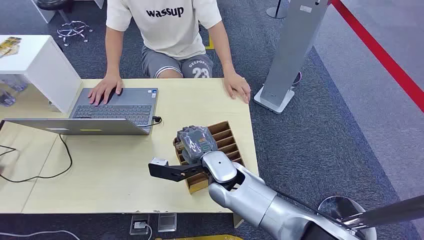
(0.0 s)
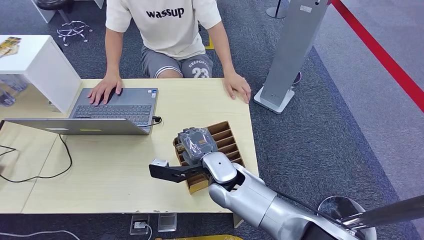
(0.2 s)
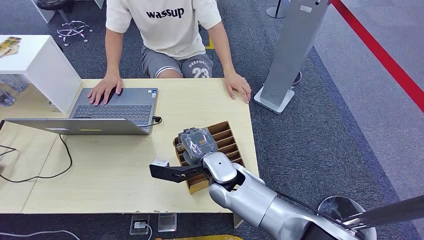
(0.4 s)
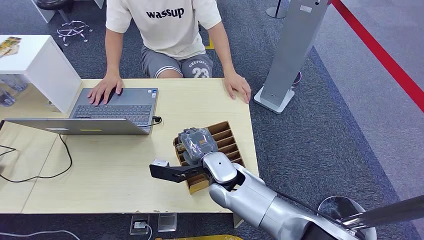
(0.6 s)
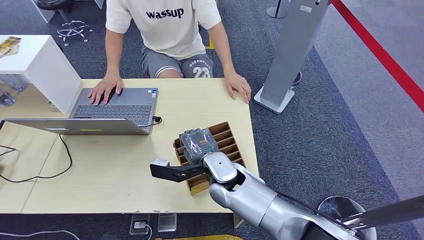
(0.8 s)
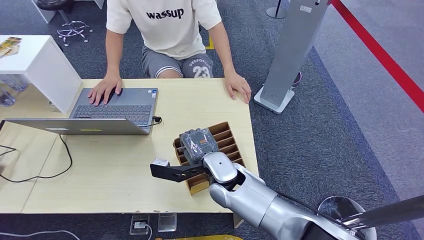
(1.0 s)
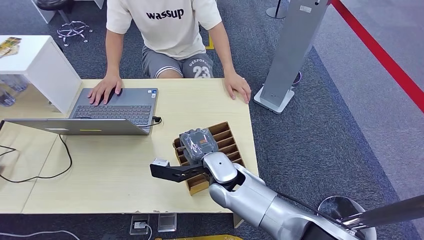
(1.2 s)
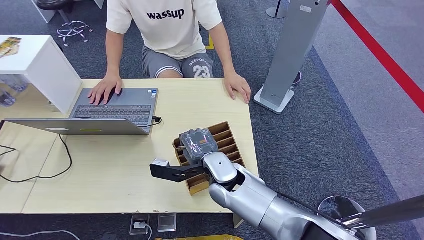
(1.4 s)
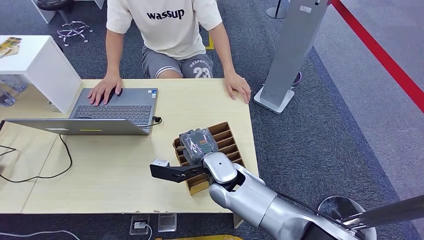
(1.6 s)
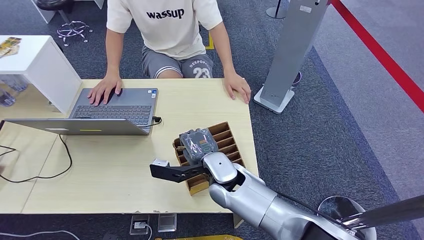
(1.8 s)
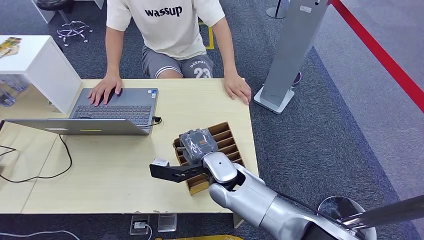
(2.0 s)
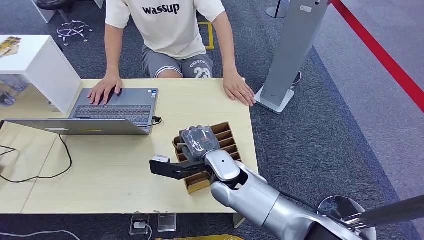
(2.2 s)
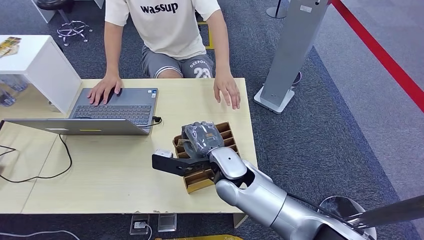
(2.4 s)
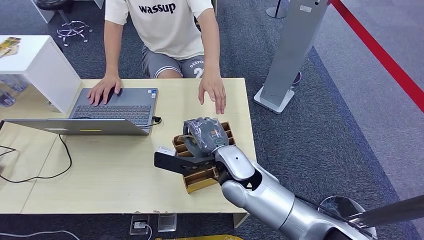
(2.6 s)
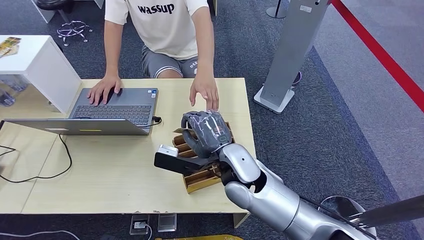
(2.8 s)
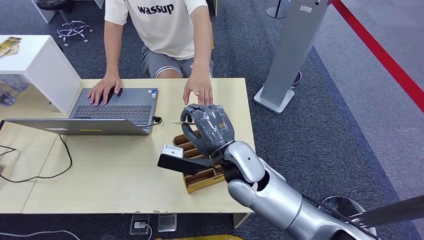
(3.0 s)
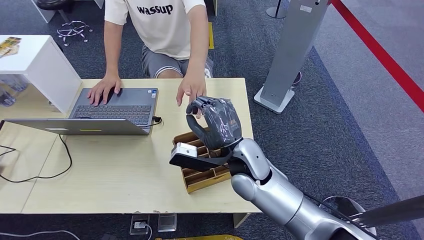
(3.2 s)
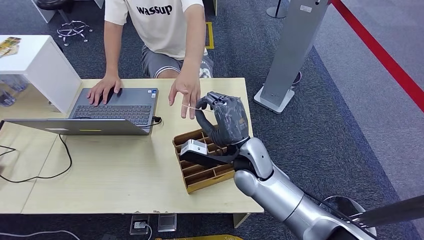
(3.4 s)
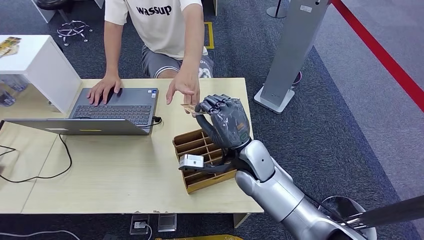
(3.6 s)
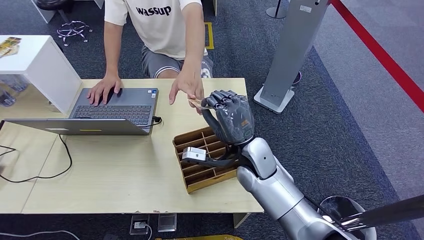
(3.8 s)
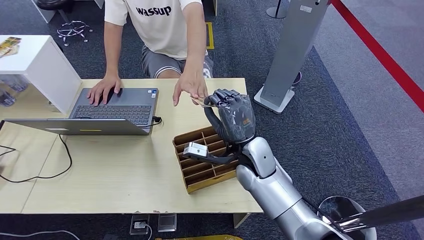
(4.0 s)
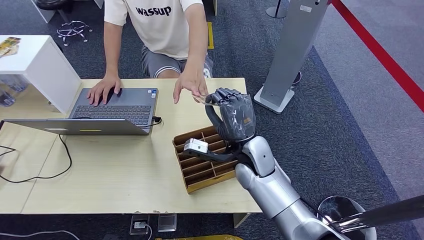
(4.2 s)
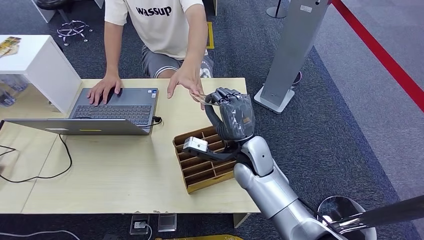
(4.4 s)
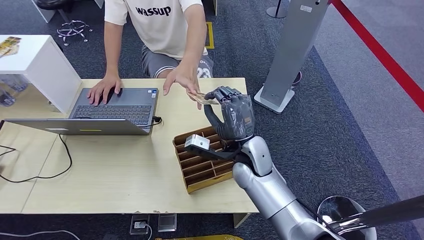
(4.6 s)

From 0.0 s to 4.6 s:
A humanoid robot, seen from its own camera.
Step, from 0.0 s to 2.4 s: Pick up the key card from the card box.
Step, from 2.8 s to 4.6 s: Hand the key card to the target.
From 1.6 s to 3.0 s: The right hand heads upward, covering roughly 5 cm.
From 3.0 s to 4.6 s: The right hand is displaced downward by some 5 cm.

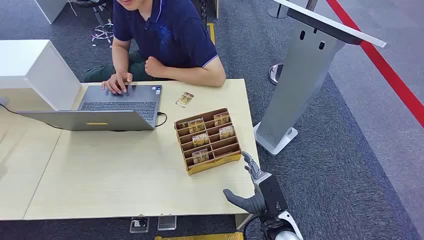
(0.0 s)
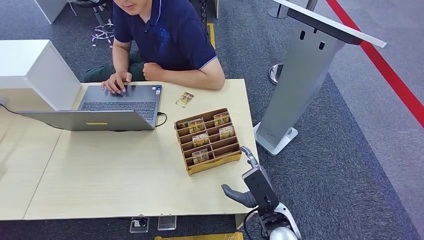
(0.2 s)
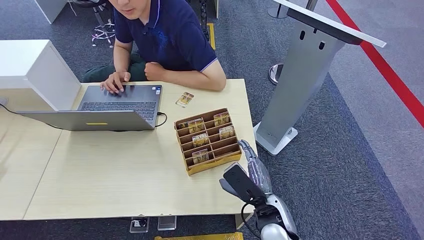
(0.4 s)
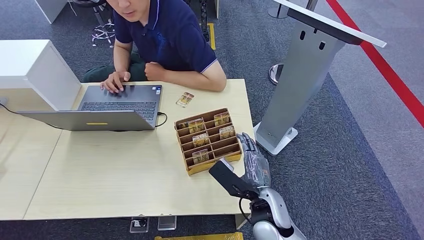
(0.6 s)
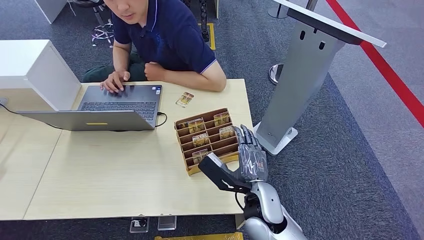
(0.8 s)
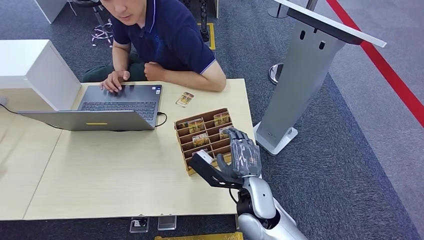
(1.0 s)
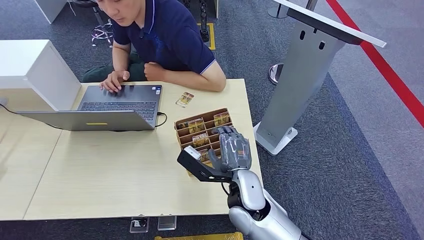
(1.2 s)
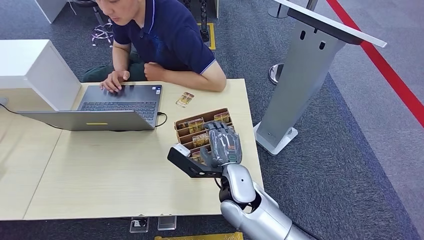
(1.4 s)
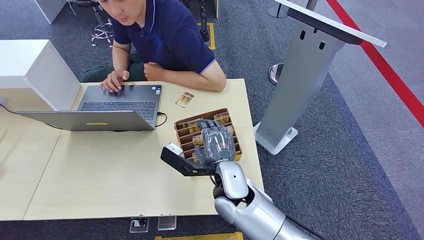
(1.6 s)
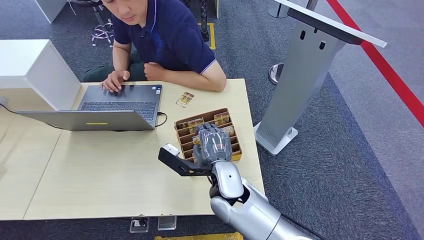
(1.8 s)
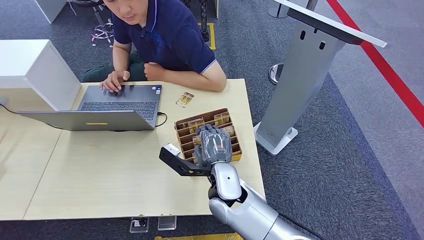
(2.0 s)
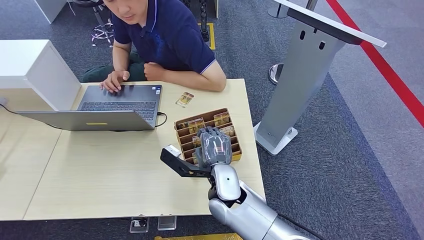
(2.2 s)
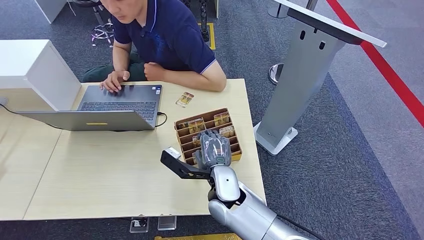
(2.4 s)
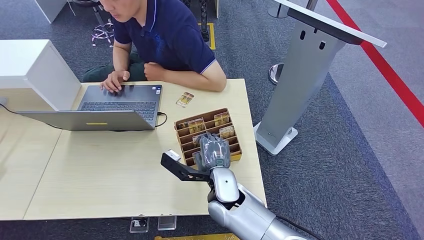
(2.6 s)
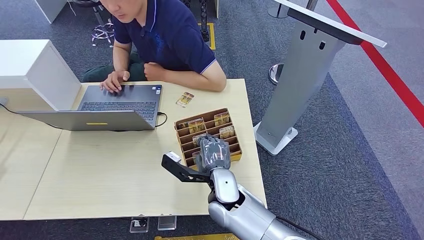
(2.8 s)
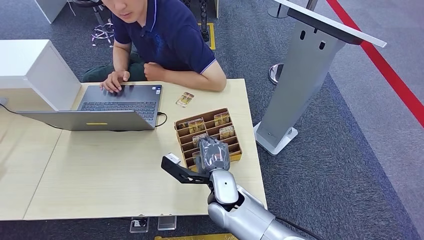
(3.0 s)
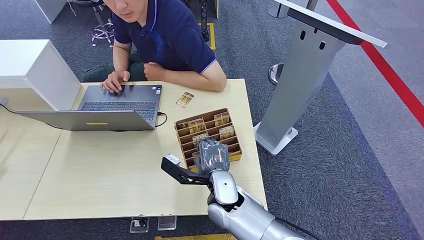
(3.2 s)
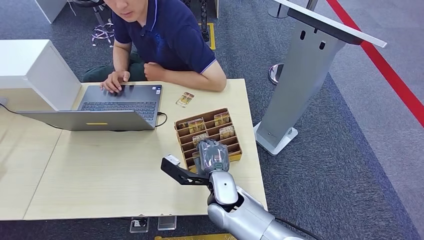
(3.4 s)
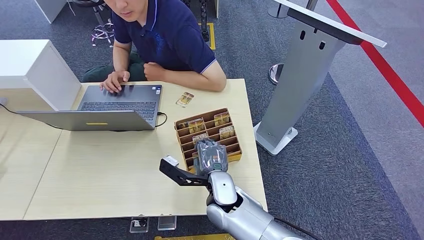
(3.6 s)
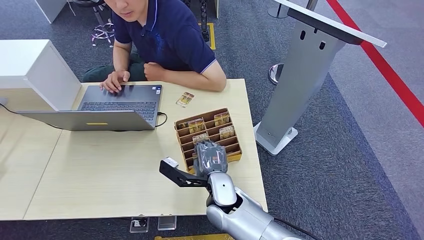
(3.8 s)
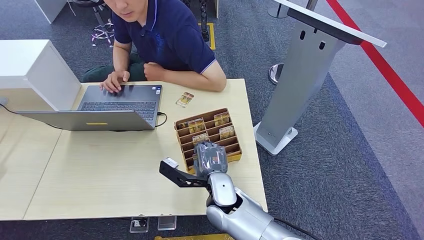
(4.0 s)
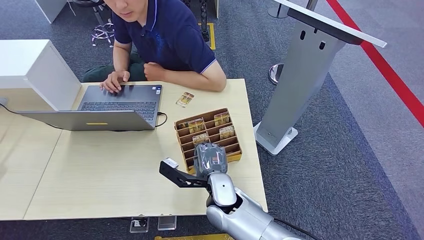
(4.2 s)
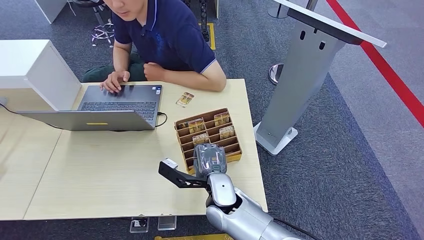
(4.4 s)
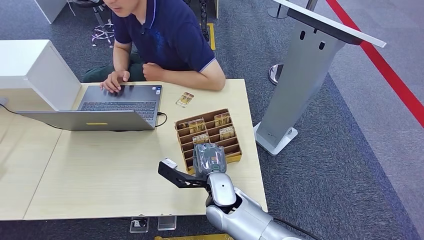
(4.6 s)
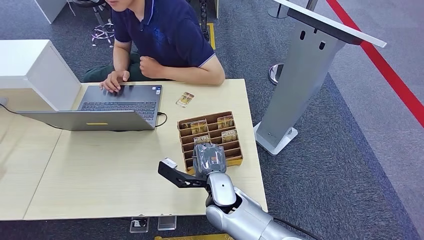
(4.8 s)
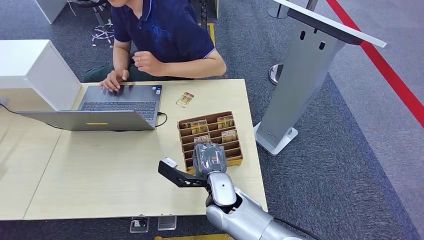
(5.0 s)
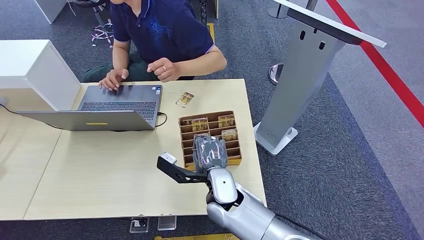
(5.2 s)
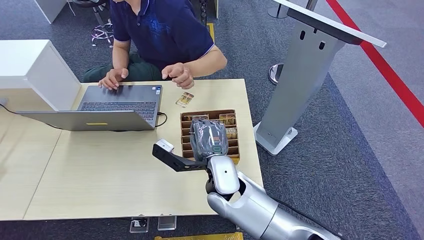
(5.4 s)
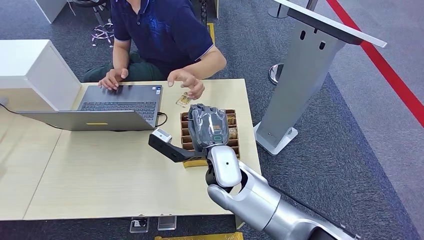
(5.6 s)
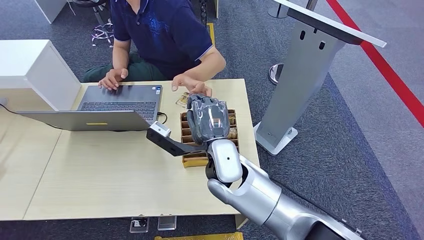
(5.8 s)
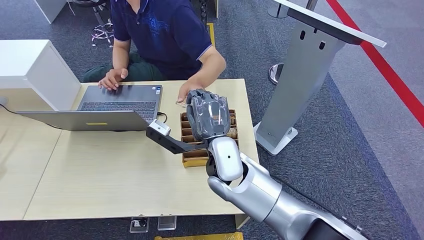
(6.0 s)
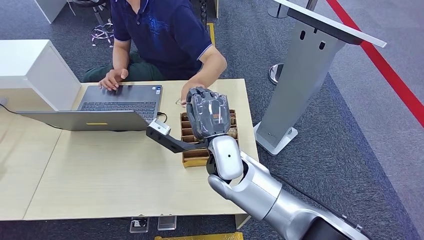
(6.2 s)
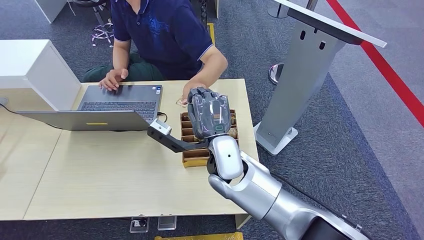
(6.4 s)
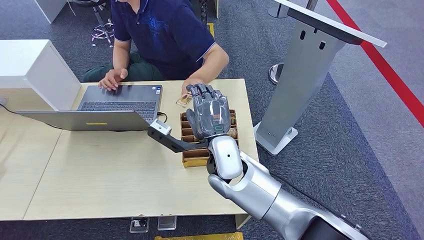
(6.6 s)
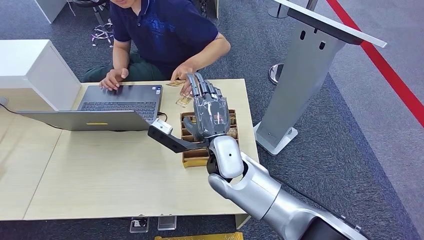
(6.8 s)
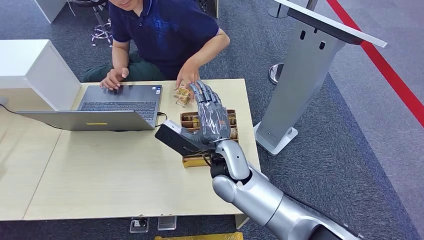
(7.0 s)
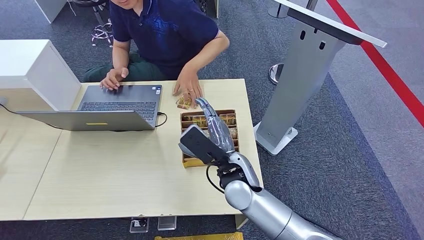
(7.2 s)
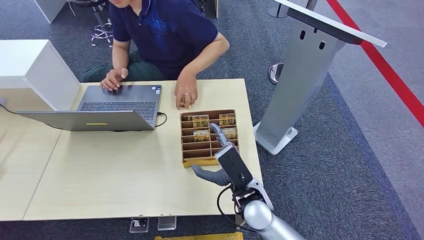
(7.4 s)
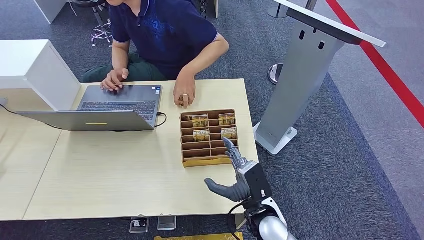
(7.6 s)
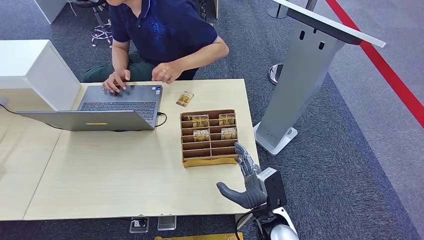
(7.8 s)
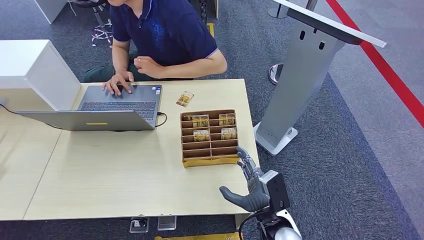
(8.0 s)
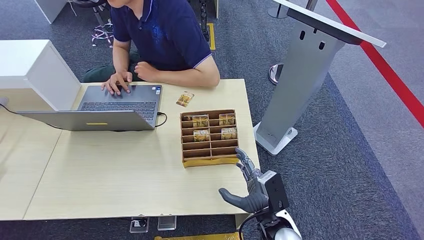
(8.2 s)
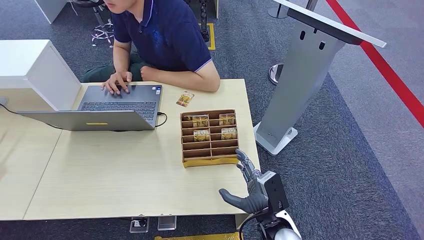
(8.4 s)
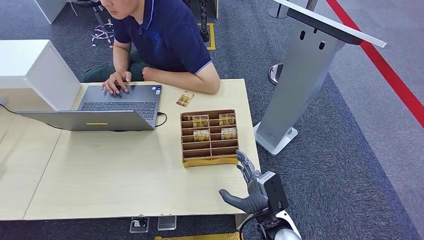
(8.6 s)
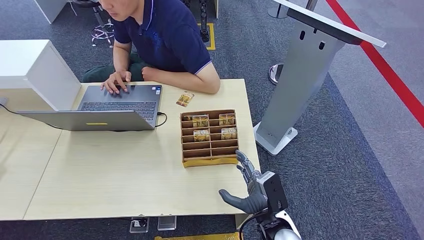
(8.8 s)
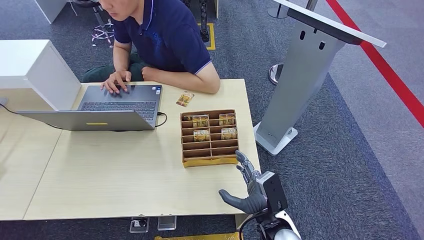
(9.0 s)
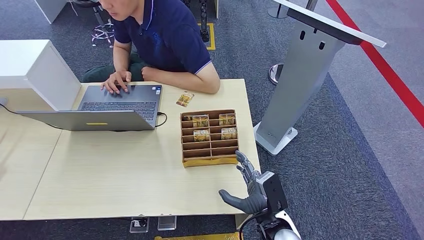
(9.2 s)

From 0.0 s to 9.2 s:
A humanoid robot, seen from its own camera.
Step, from 0.0 s to 5.4 s: Pick up the key card from the card box.
Step, from 5.6 s to 9.2 s: Hand the key card to the target.
From 1.6 s to 3.0 s: The hands stay close to where they were, moving slightly.
From 3.0 s to 4.6 s: Neither hand changes place.
From 4.6 s to 6.2 s: The right hand travels upward by about 10 cm.
From 6.2 s to 7.6 s: The right hand shifts about 20 cm downward, to the right and backward.
From 7.6 s to 9.2 s: The right hand moves some 5 cm.
